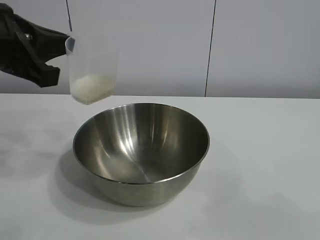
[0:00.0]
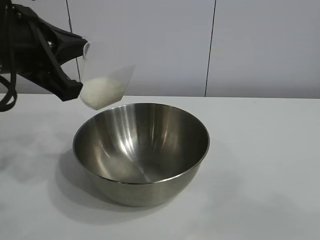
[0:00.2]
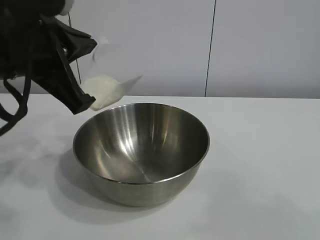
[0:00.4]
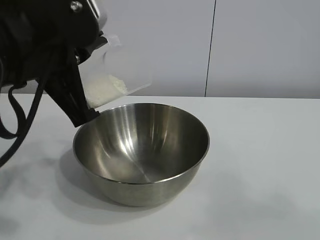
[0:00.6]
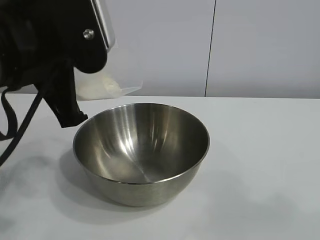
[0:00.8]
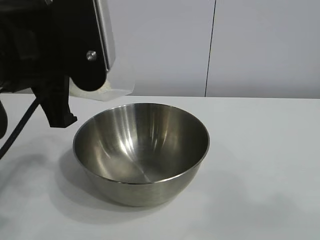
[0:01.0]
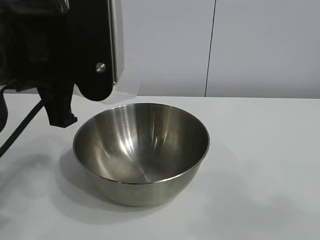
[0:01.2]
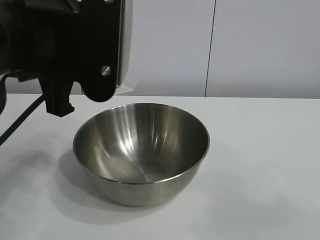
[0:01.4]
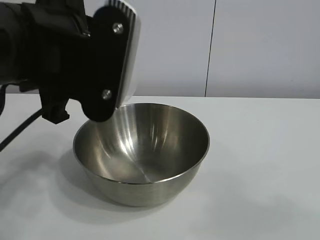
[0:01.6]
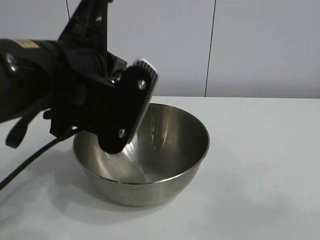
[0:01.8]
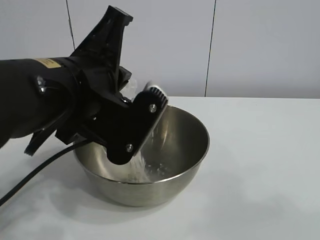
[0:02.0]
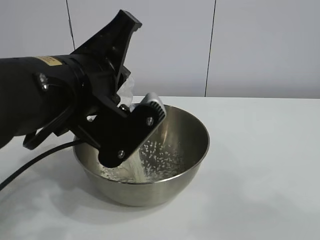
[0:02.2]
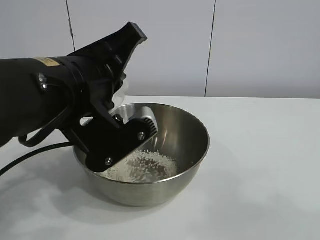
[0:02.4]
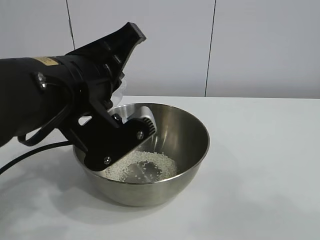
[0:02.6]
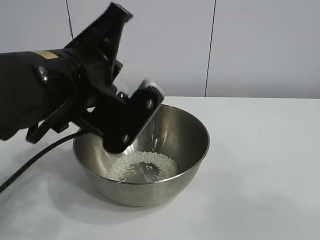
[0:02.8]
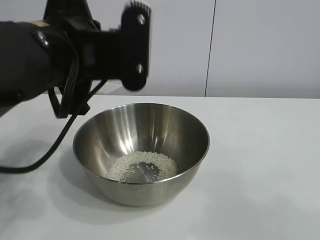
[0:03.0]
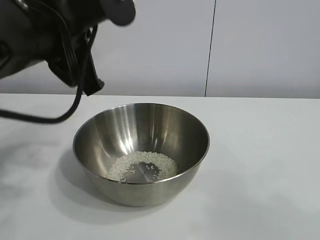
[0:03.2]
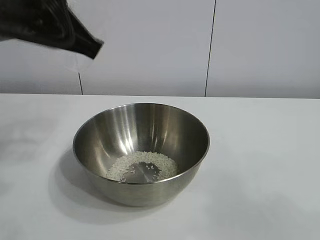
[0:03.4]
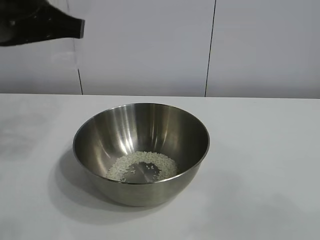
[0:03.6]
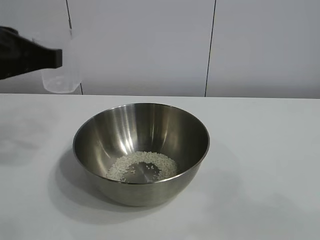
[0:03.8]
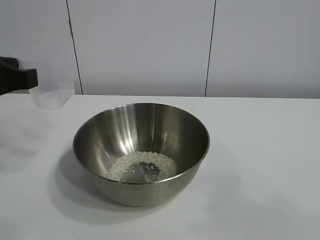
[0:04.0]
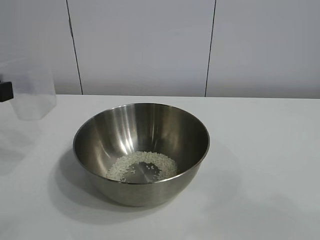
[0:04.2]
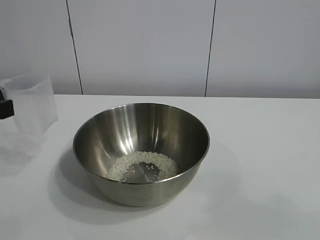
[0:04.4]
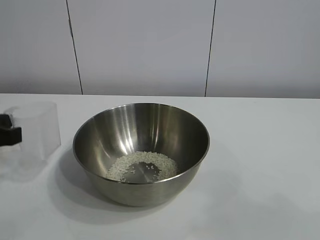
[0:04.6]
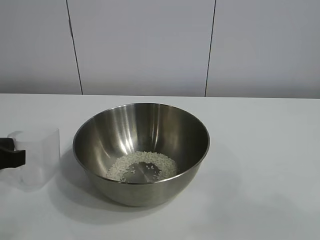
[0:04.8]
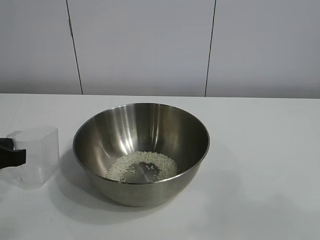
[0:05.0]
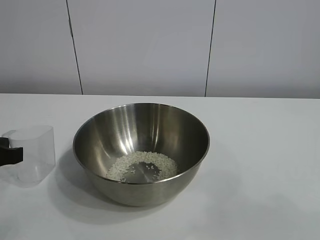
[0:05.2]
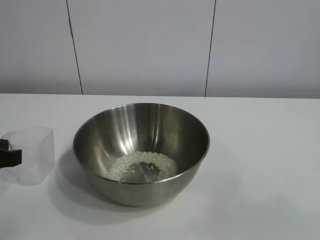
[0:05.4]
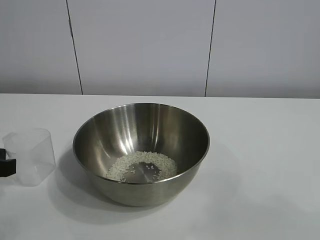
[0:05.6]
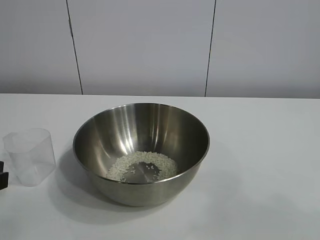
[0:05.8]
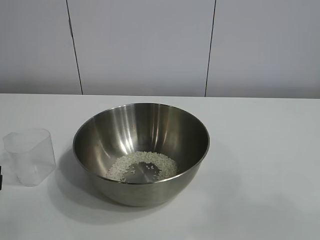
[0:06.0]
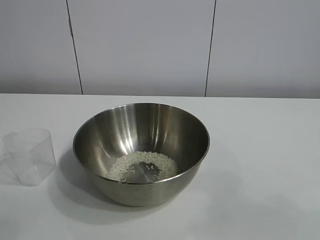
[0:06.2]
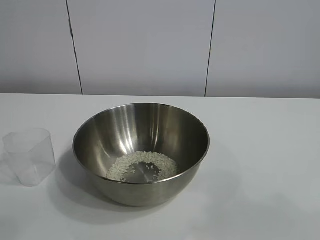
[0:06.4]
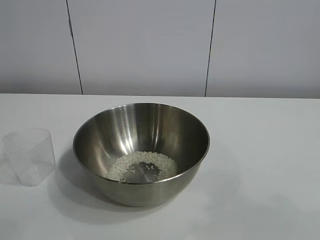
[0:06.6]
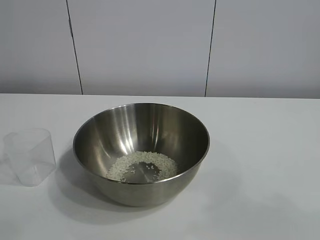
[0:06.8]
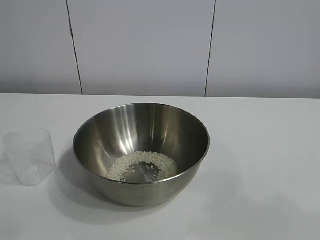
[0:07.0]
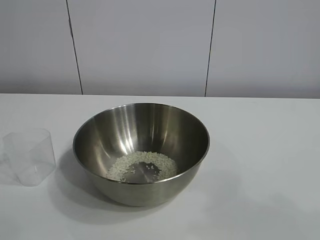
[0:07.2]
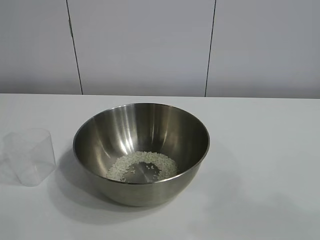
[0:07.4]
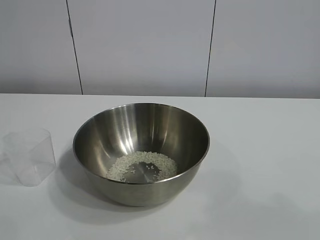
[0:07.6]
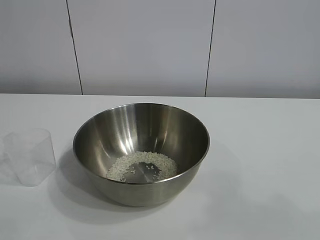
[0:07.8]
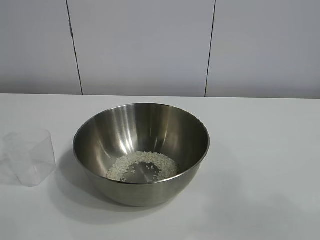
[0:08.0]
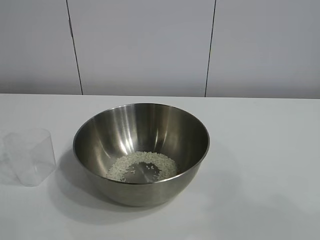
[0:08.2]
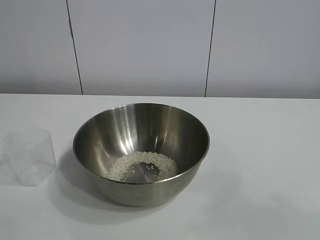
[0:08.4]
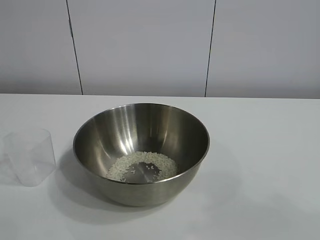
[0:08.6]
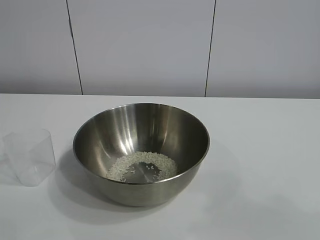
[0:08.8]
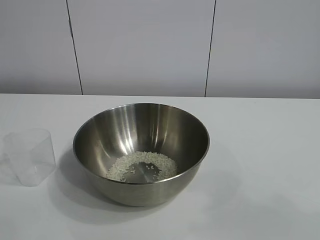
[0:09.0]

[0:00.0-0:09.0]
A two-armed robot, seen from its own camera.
Task of the whole recording: the right gripper grasp the rice container and place it in the center of the table, the left gripper grasp the rice scoop and pour the rice into the rice container.
Step, 0:00.0 to 0:02.6: Pour the rice from the cup into the bowl with the left gripper.
Step, 0:02.8 to 0:05.6: Place the cup on the table with the left gripper.
